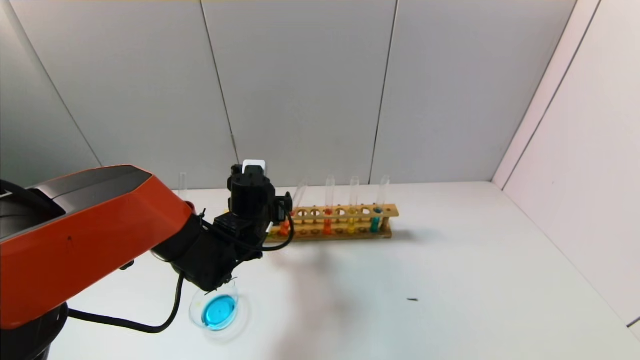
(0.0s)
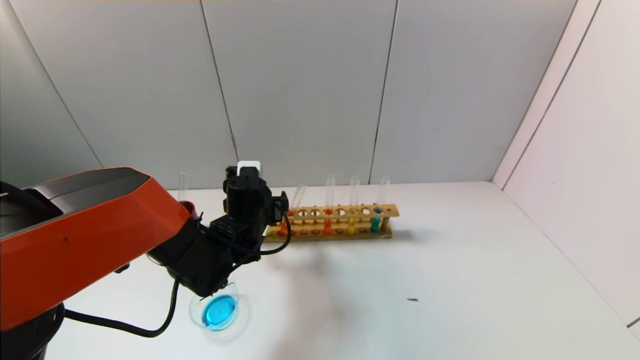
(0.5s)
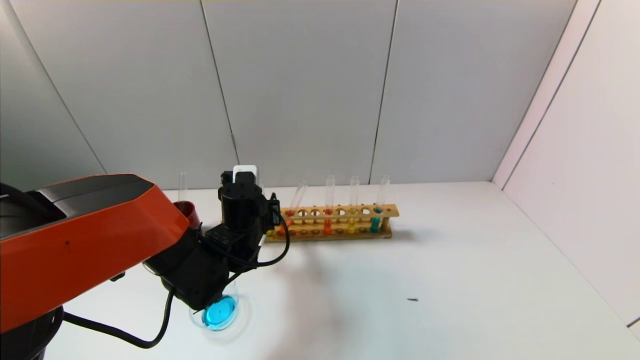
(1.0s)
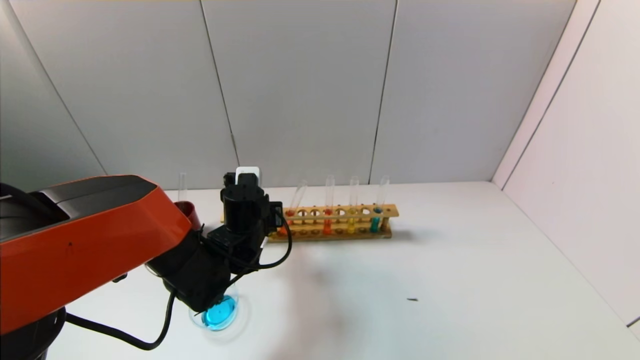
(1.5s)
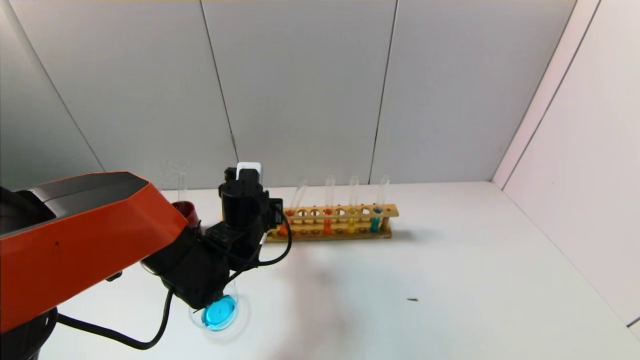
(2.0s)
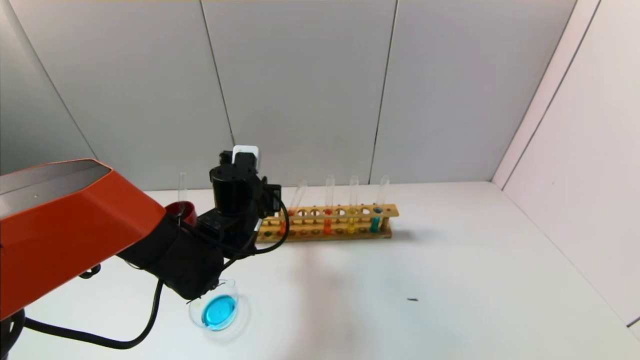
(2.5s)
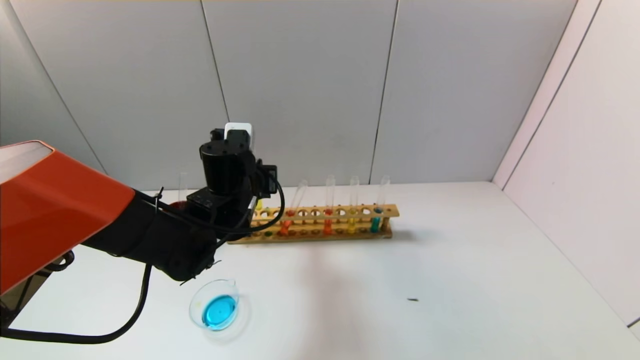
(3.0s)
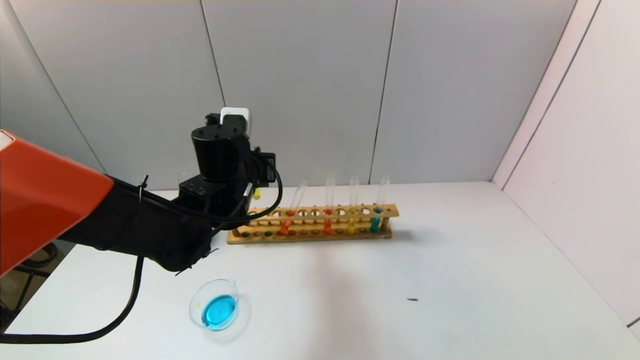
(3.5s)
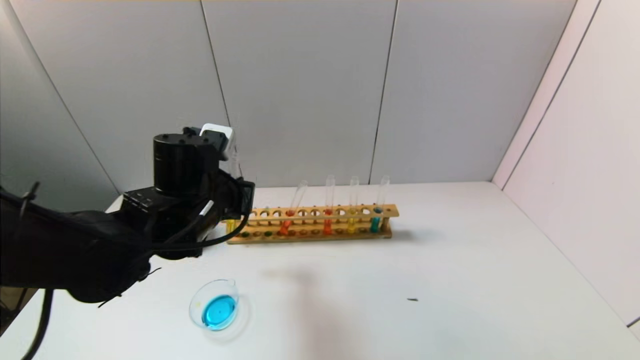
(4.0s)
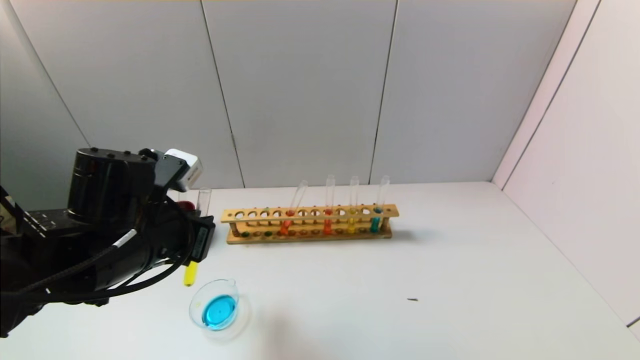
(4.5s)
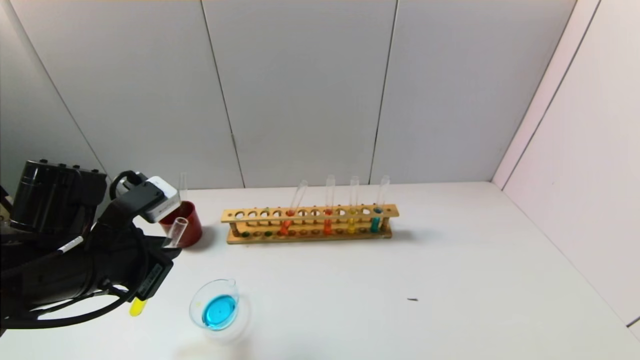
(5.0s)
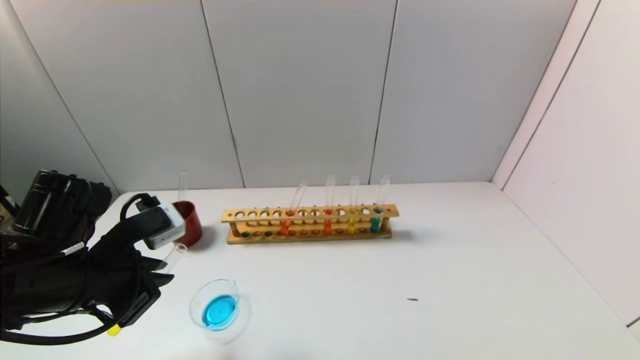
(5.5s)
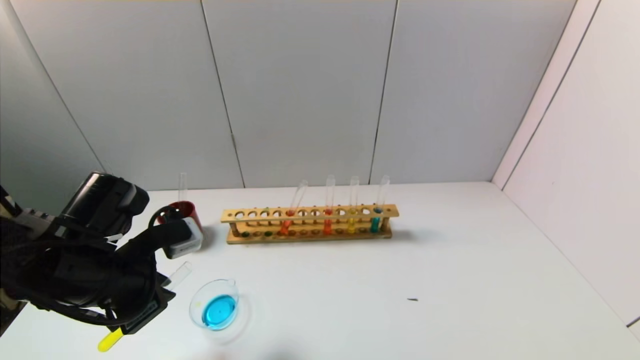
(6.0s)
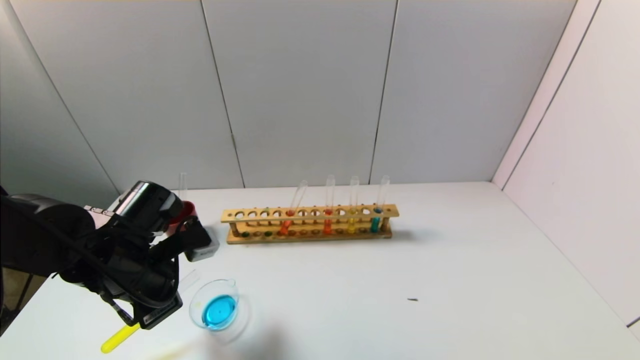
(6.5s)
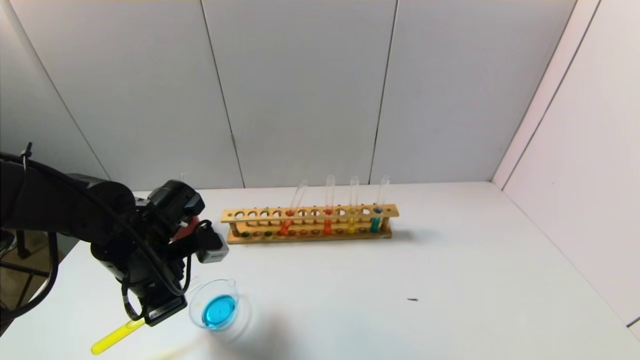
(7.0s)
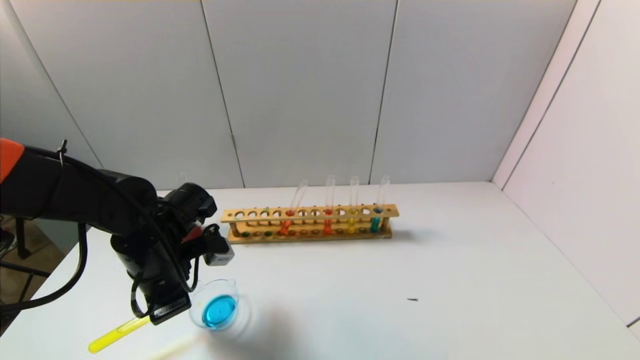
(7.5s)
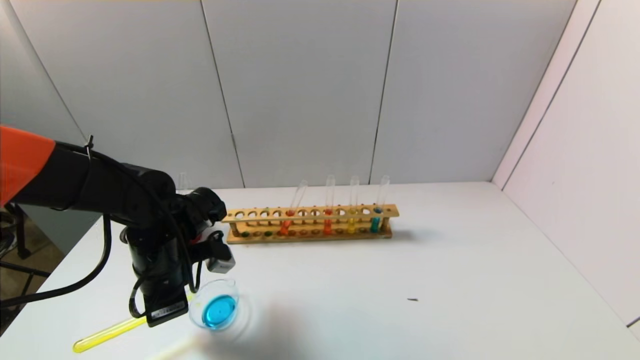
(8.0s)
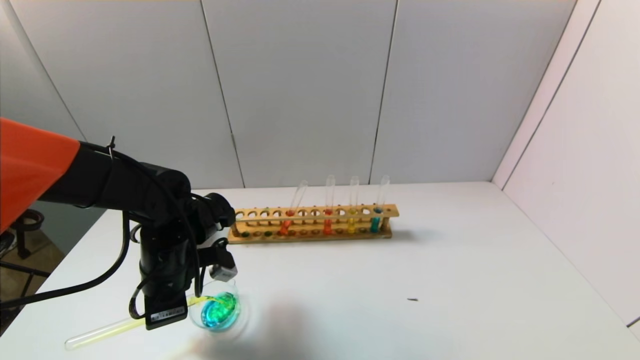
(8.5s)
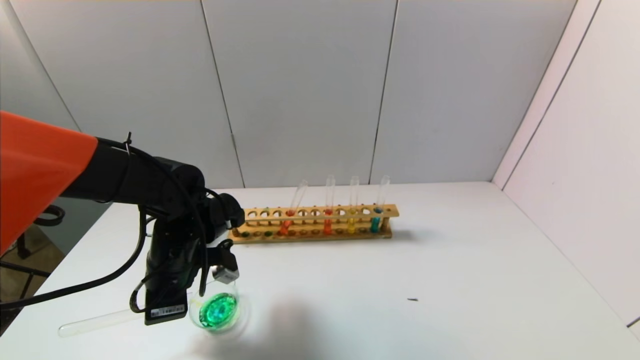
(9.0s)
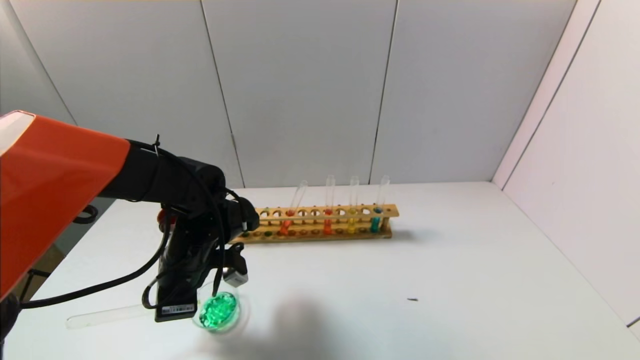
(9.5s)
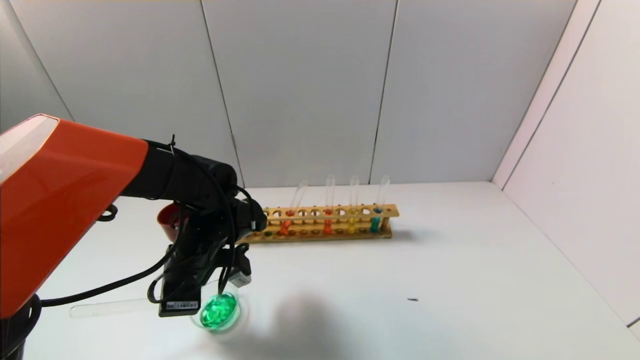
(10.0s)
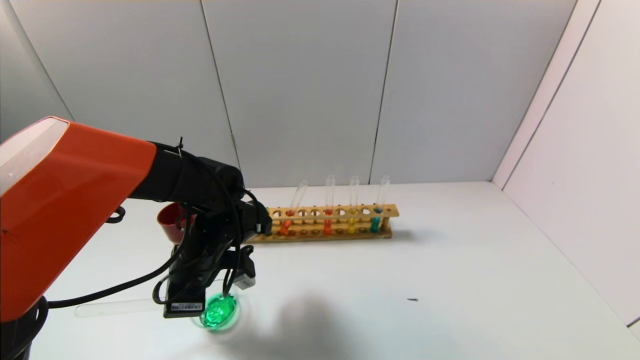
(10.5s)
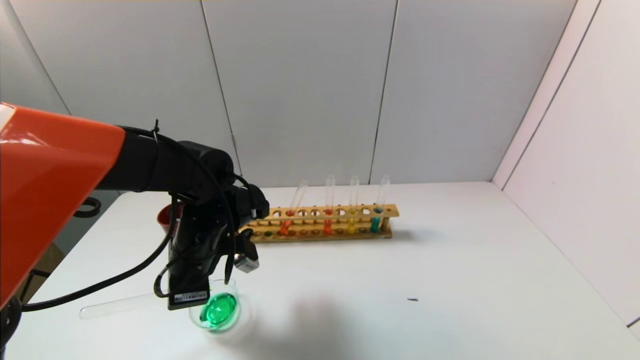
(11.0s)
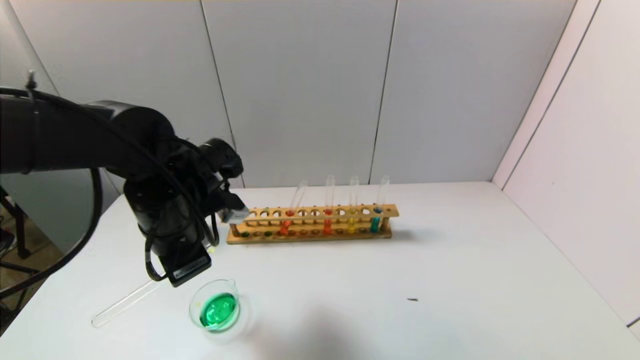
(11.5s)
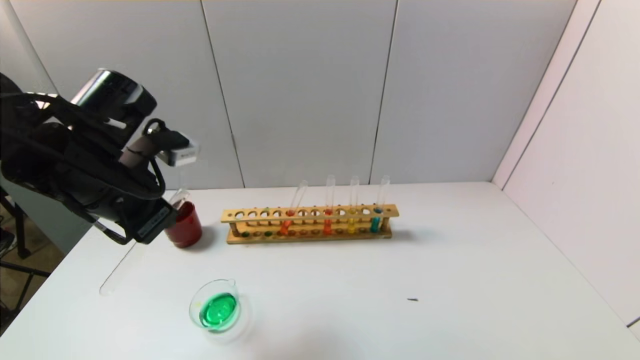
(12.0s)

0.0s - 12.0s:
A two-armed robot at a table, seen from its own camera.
Task of the whole recording: pick up the test tube with yellow pigment and the test tube with blue pigment by grippers and pour them into the beaker.
Step, 2.0s - 10.0s: Pour the yellow reagent into the graduated cylinder with the left gripper.
0.0s - 2.0s: The left gripper closes up.
2.0s - 4.0s: The left gripper travels upward and backward by approximately 10 cm.
4.0s - 6.0s: The left gripper travels to the left and backward by roughly 10 cm.
6.0s - 8.0s: The left gripper moves forward, some 5 cm.
10.0s - 12.0s: The left gripper is displaced upward and to the left by roughly 15 cm.

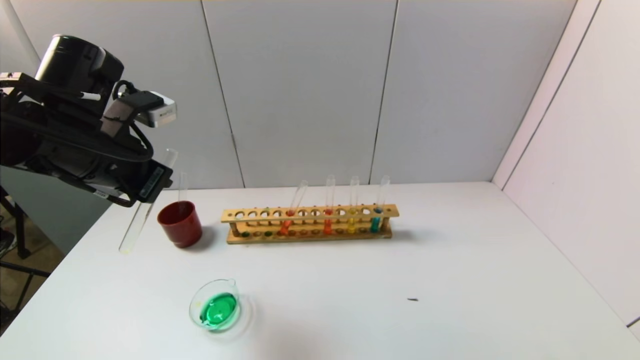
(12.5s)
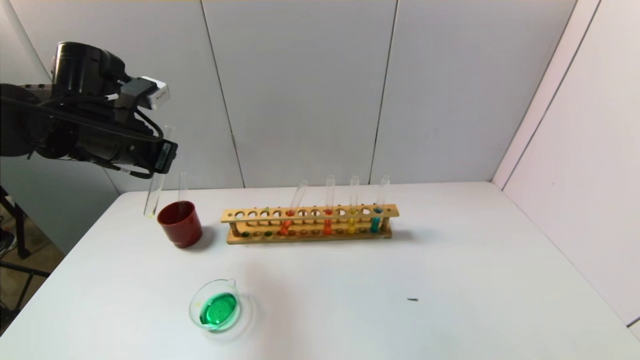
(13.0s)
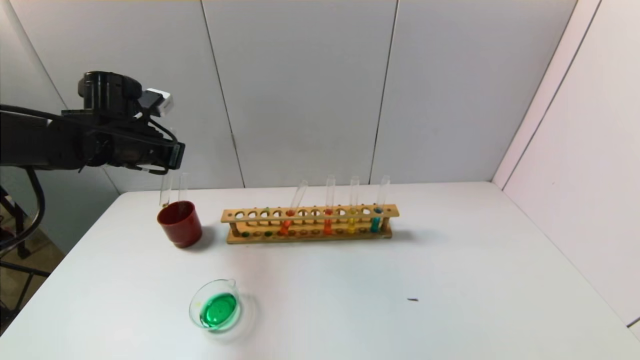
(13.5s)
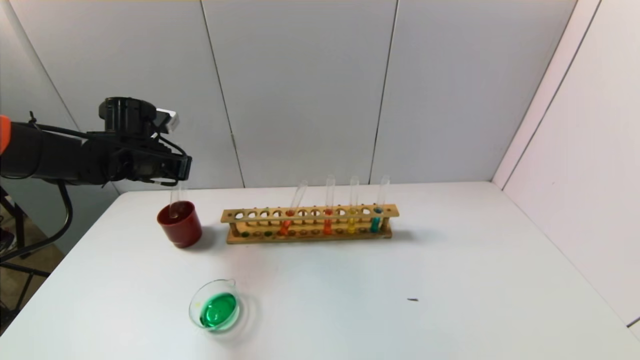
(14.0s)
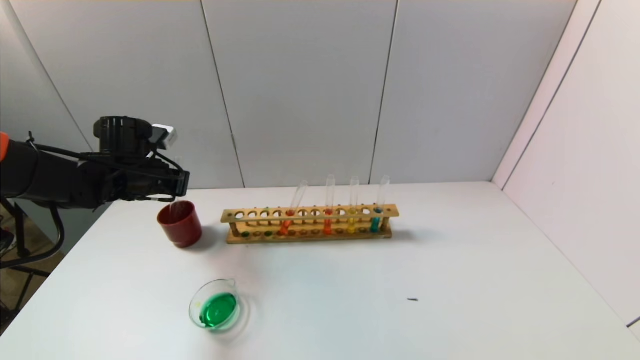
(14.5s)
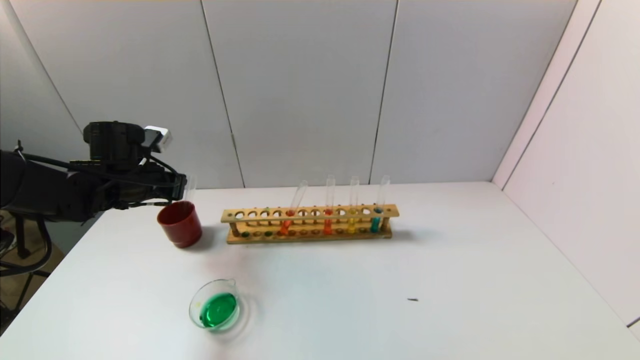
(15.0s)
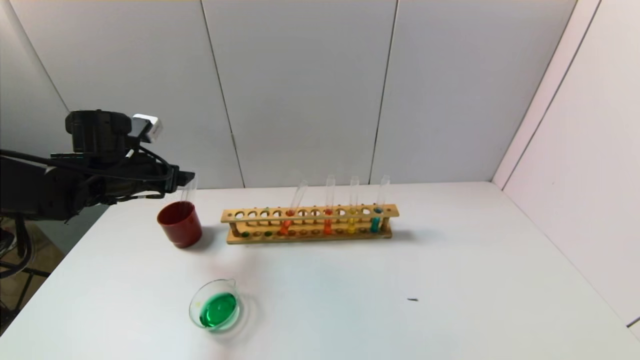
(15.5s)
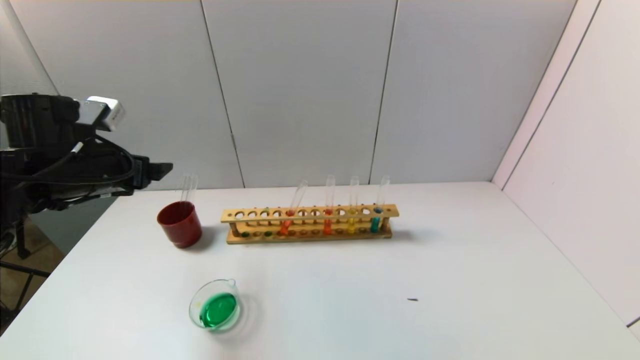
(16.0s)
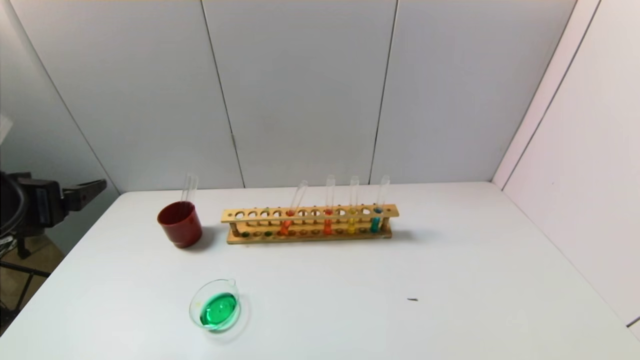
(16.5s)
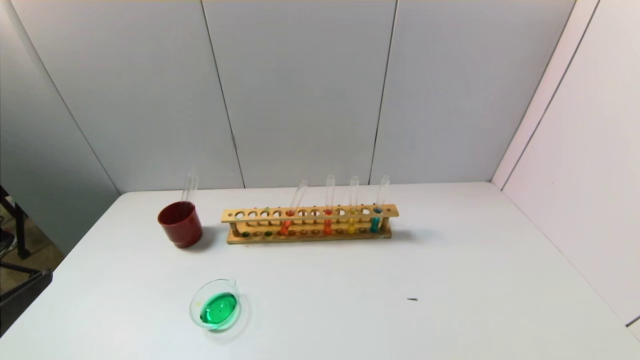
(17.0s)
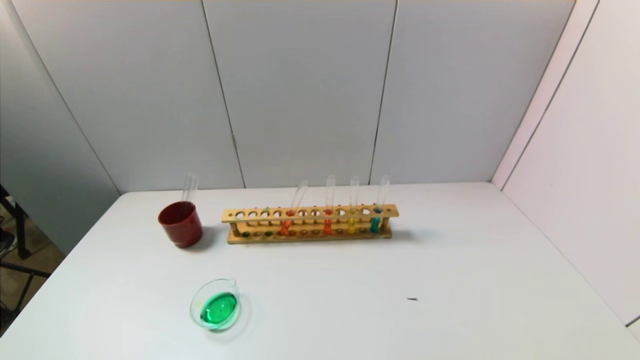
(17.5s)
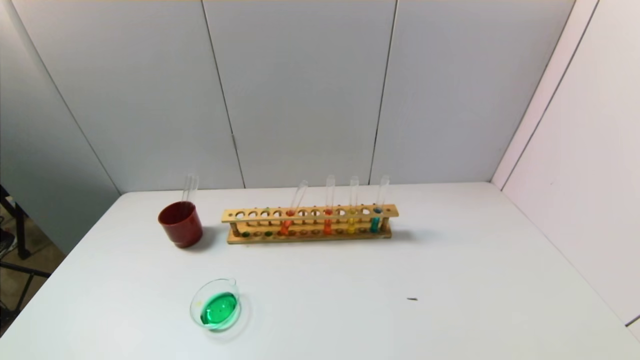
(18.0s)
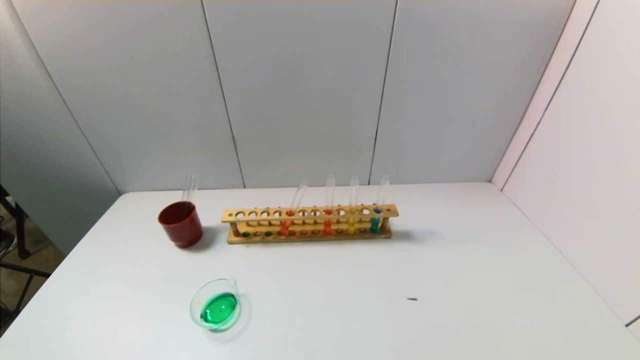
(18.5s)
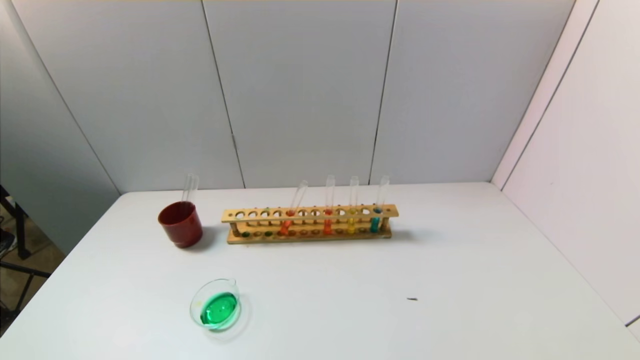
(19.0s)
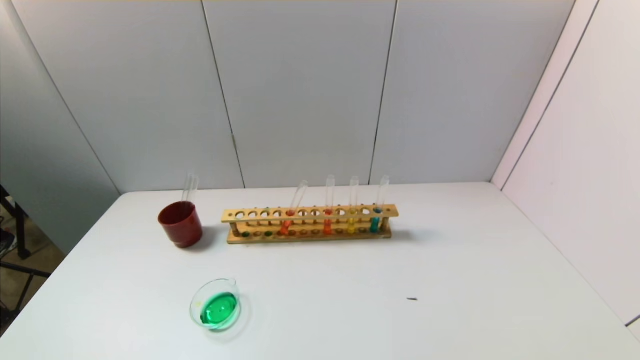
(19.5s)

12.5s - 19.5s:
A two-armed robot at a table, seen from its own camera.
Task of the whole recording: pick up the test tube with yellow pigment and the test tube with blue pigment by grippers and pour them into the beaker.
Step, 12.5s - 15.0s: Place the test tube into the brown cup with the left gripper.
12.5s - 14.5s: The left gripper moves forward, downward and to the left, about 15 cm.
14.5s - 16.0s: The left gripper heads backward and upward, covering some 10 cm, and opens its fingers.
16.0s - 17.5s: The left gripper is displaced backward by roughly 30 cm.

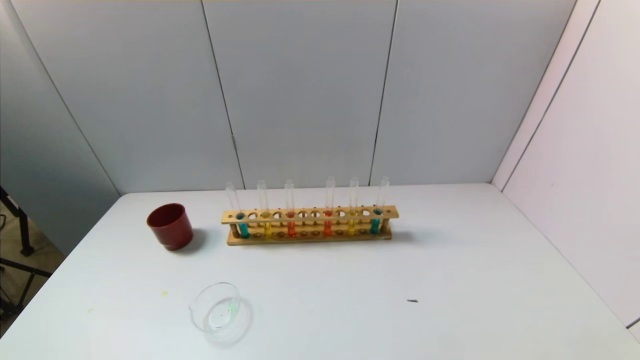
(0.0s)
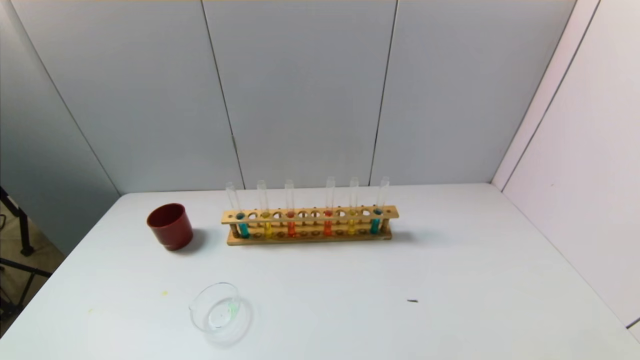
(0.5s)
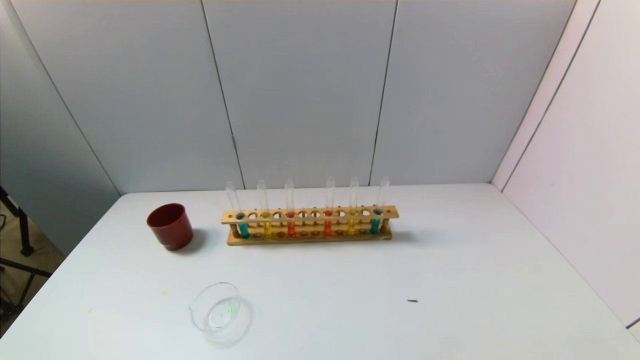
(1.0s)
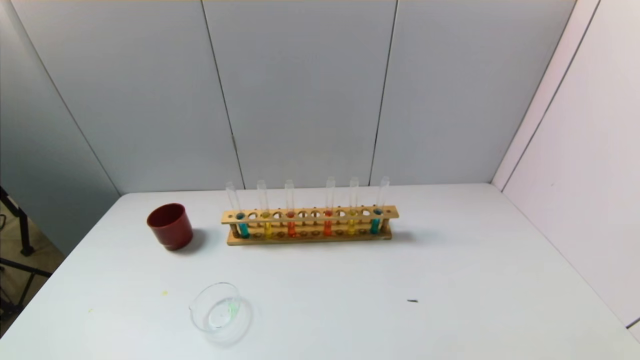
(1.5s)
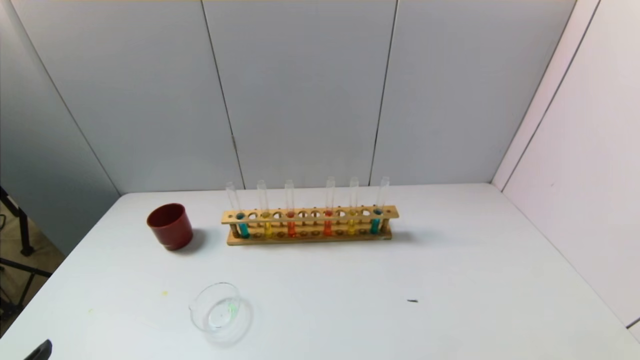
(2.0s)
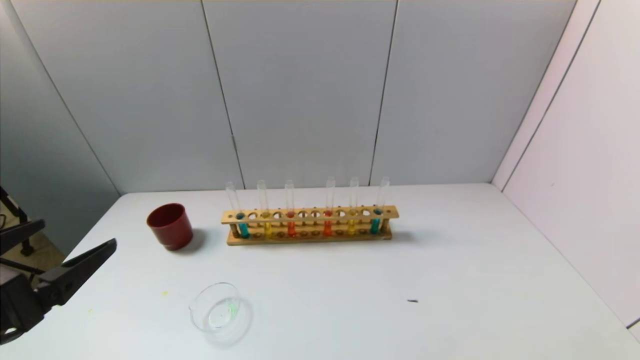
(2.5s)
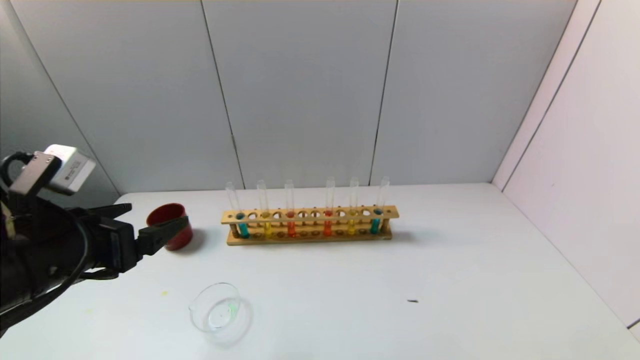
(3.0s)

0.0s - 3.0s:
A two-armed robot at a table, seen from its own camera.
Task of the whole recording: pick up the test tube with yellow pigment and the test tube with blue pigment by grippers and pour them into the beaker.
1.5s - 3.0s: The left gripper travels forward and upward by about 25 cm.
